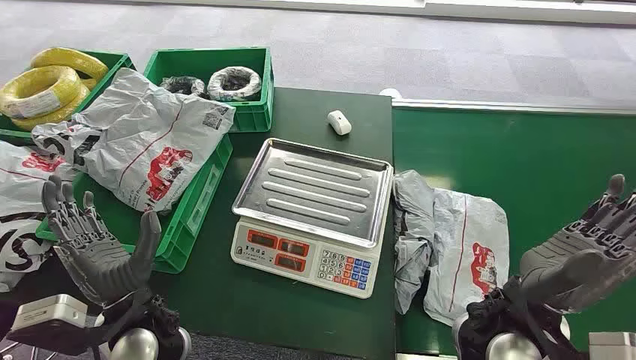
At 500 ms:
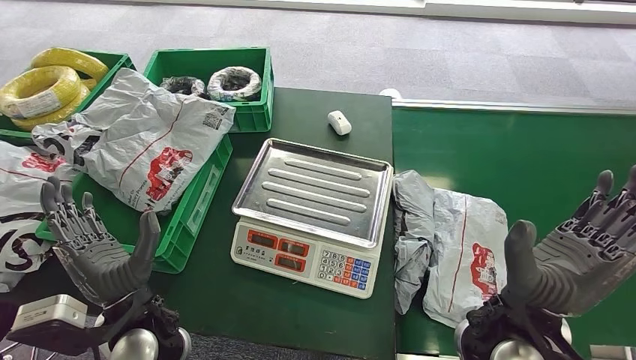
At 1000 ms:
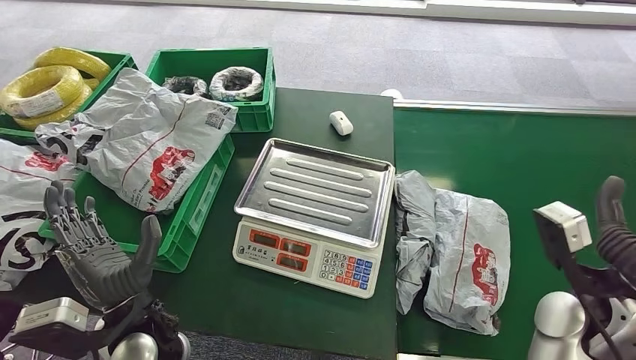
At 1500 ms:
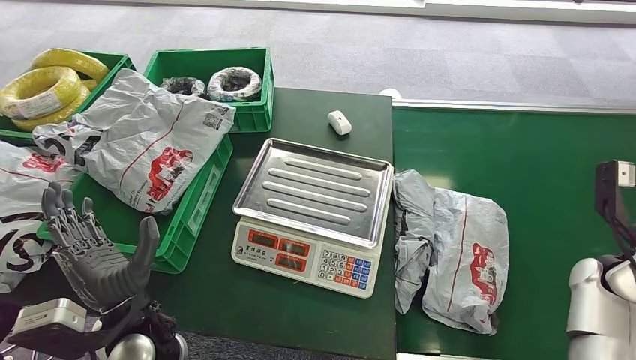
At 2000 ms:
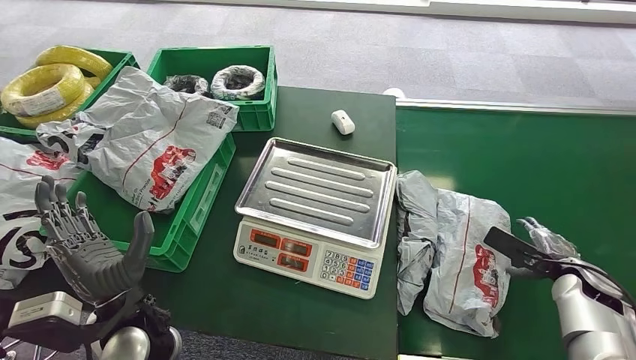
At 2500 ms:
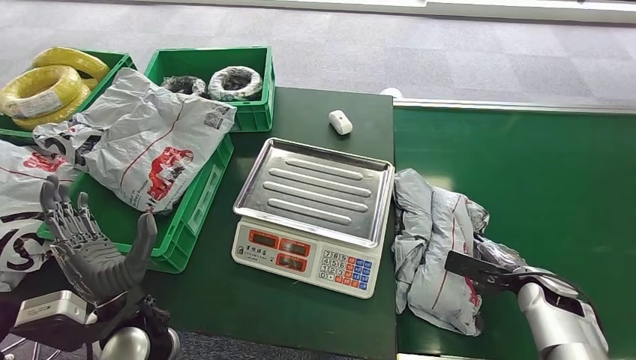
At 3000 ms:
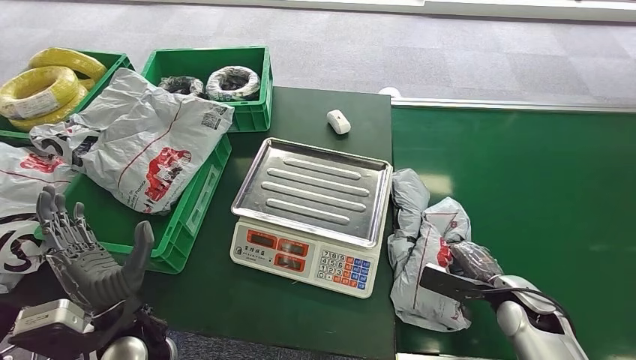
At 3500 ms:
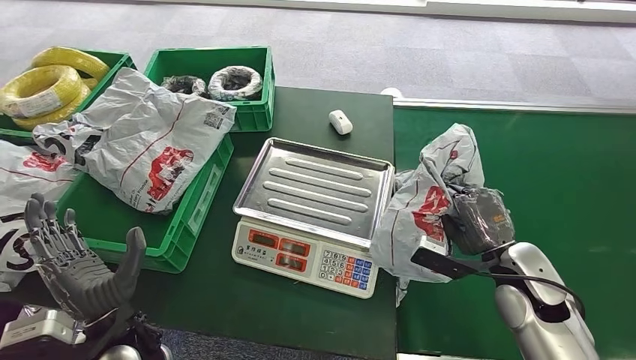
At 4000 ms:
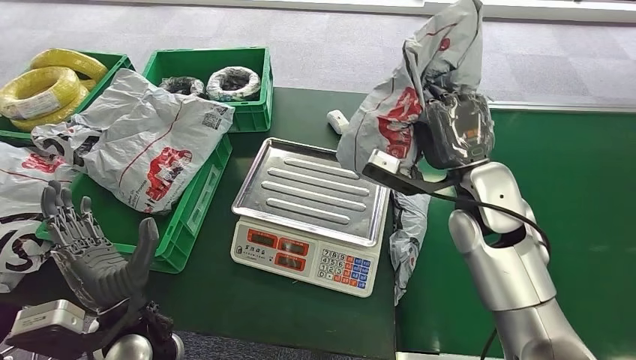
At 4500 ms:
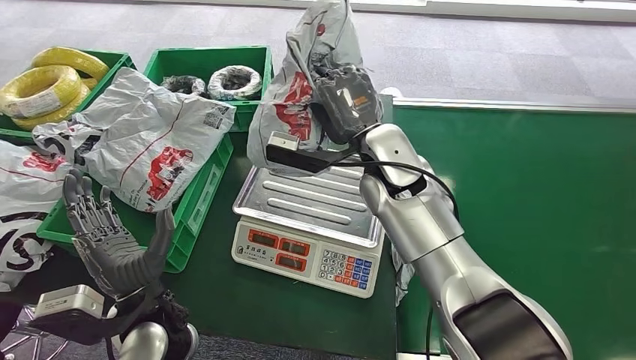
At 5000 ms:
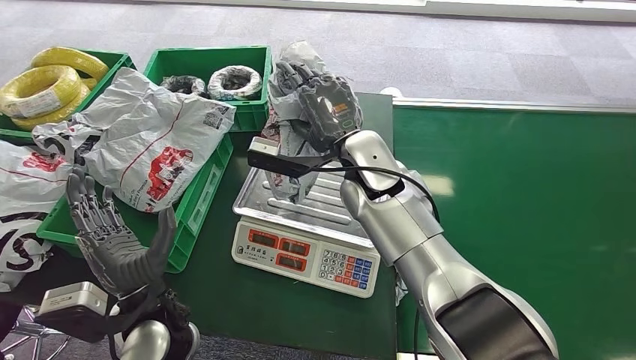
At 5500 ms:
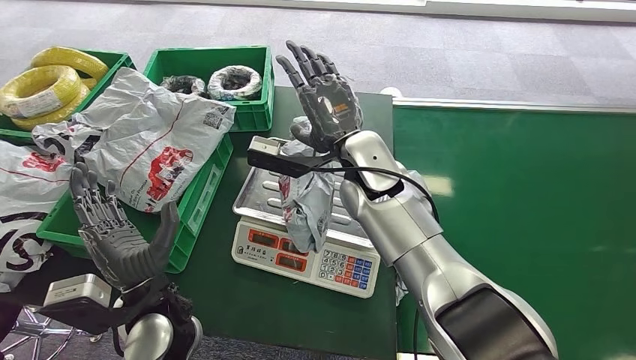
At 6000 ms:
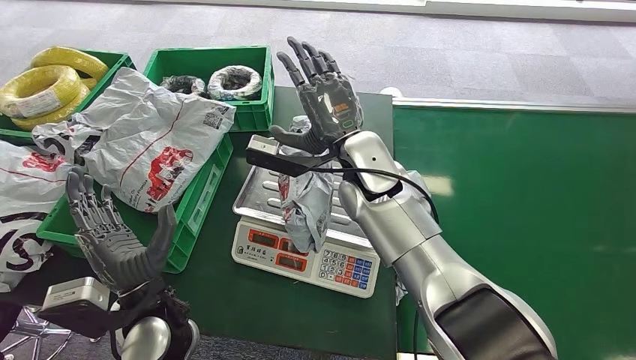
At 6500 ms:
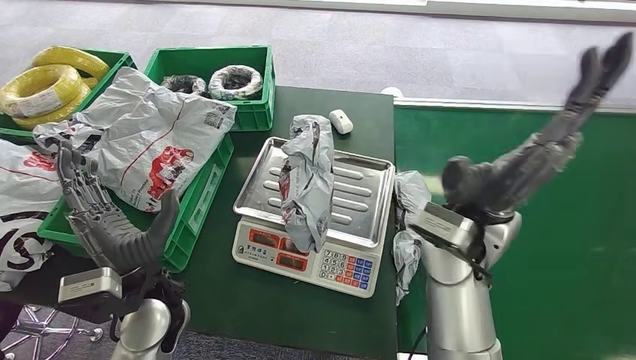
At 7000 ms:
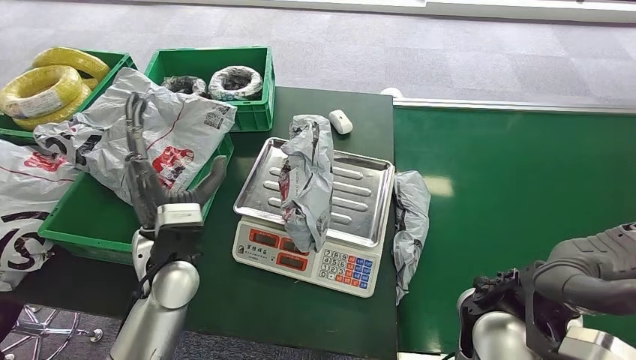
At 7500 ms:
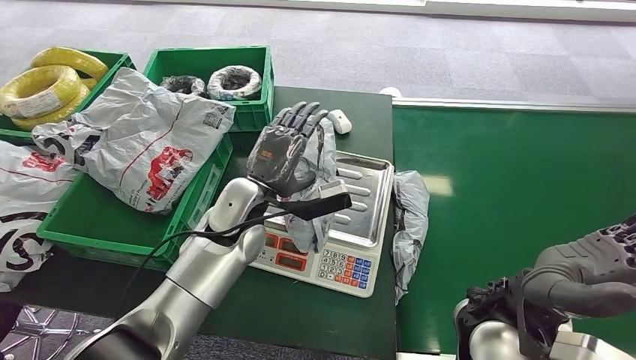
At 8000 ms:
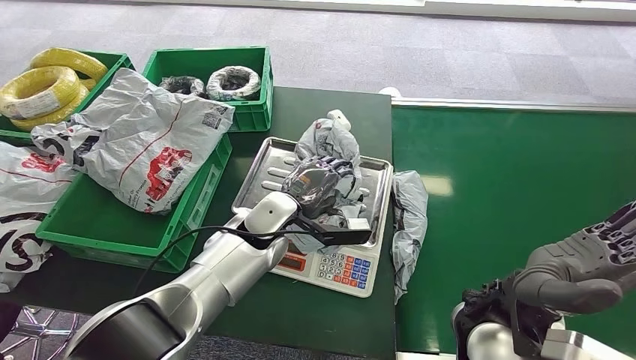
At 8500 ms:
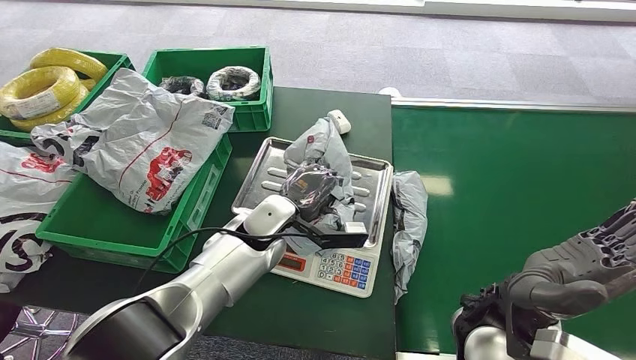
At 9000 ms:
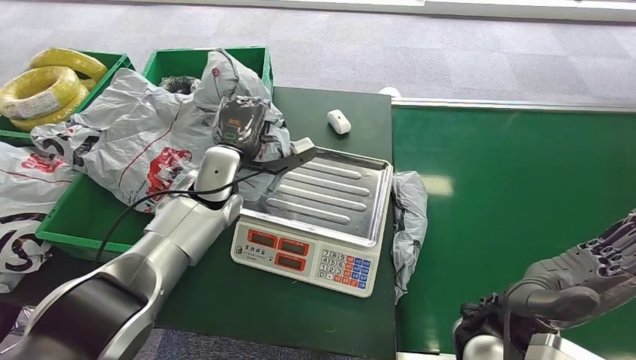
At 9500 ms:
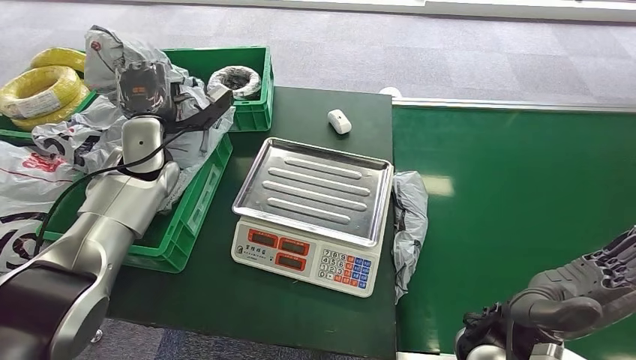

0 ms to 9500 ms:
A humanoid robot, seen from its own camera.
Step, 0 ms to 3500 ms: Pick up the package from the conveyor belt.
Step, 4000 ms to 5500 ms: Place the package onto the inbound machine.
Step, 6000 ms to 9000 ms: Pick up the package from the inbound machine.

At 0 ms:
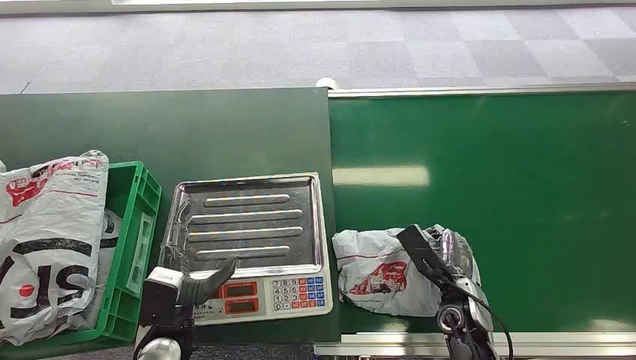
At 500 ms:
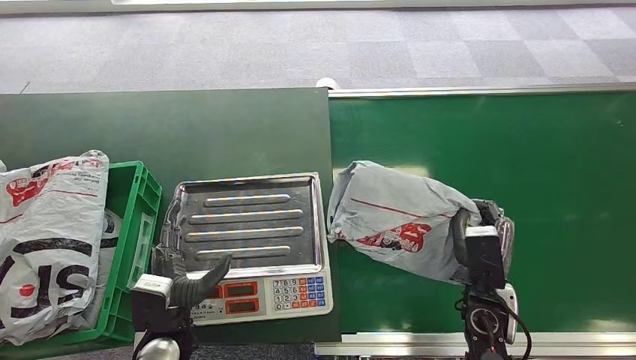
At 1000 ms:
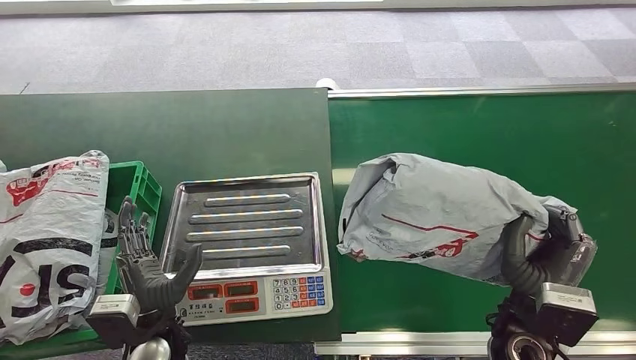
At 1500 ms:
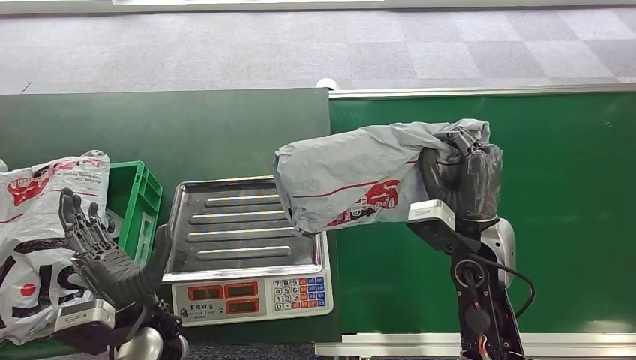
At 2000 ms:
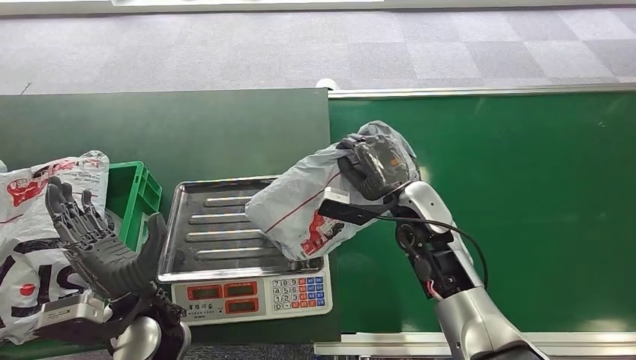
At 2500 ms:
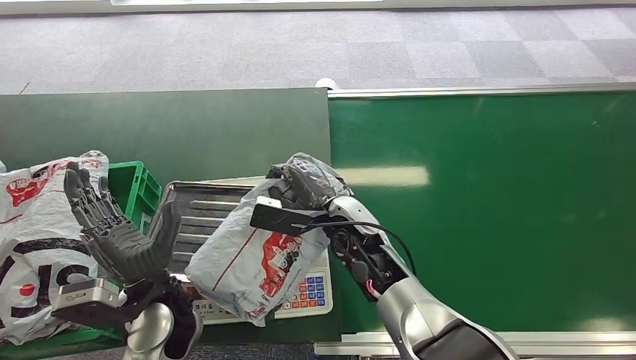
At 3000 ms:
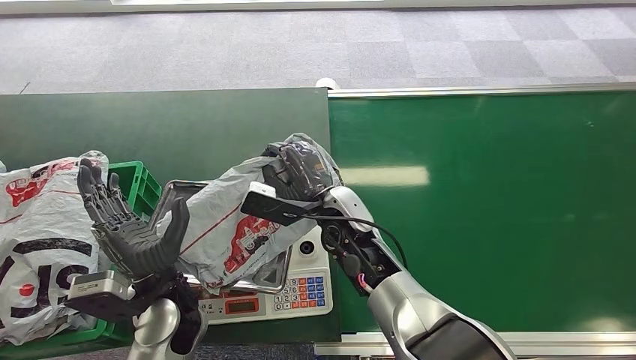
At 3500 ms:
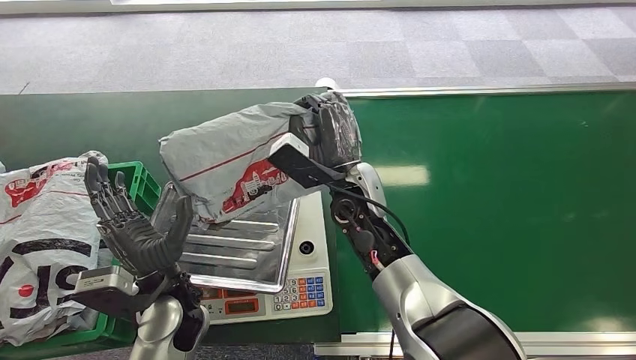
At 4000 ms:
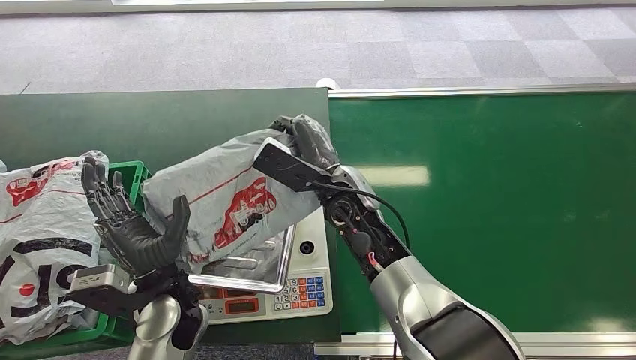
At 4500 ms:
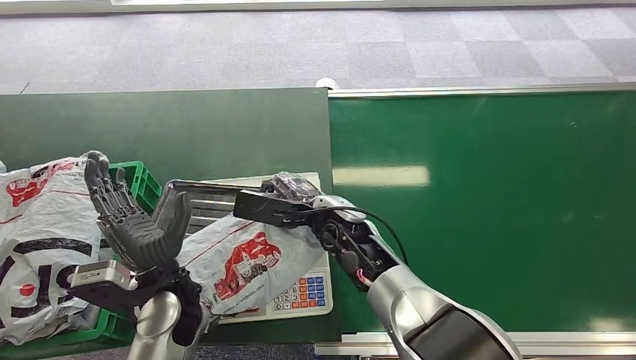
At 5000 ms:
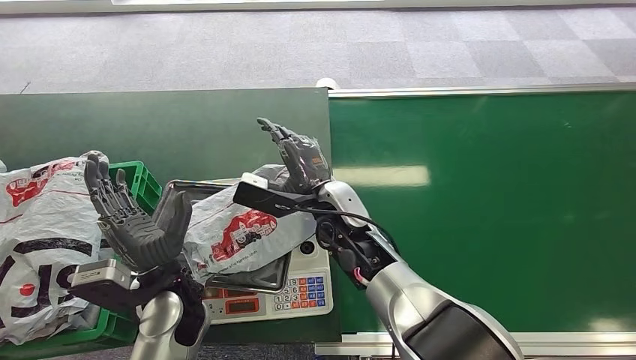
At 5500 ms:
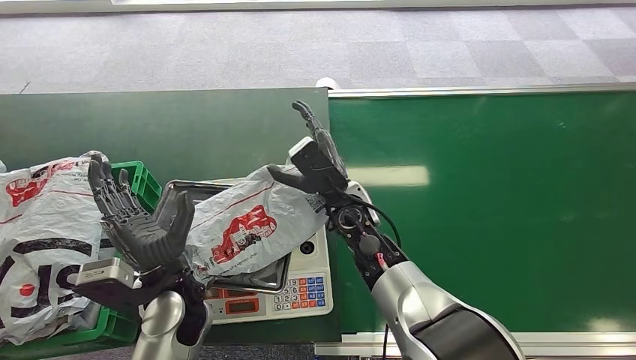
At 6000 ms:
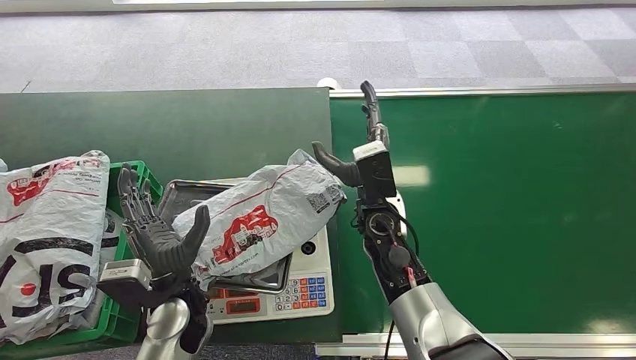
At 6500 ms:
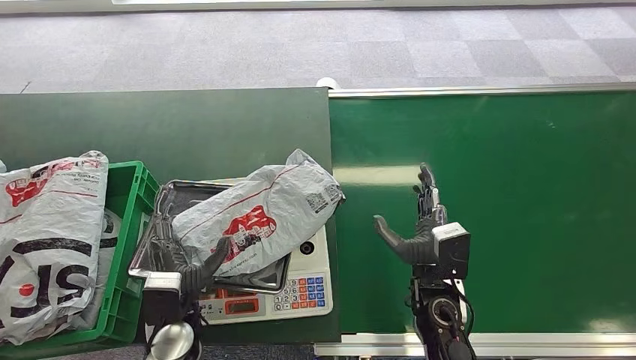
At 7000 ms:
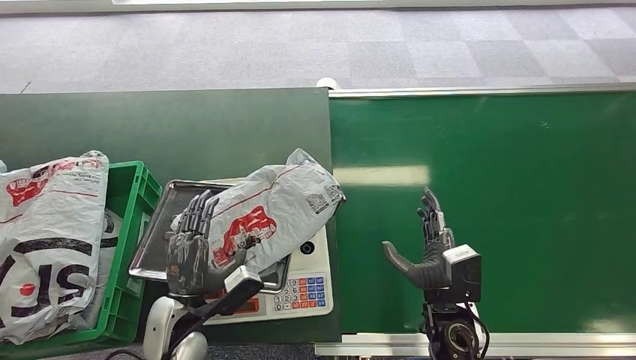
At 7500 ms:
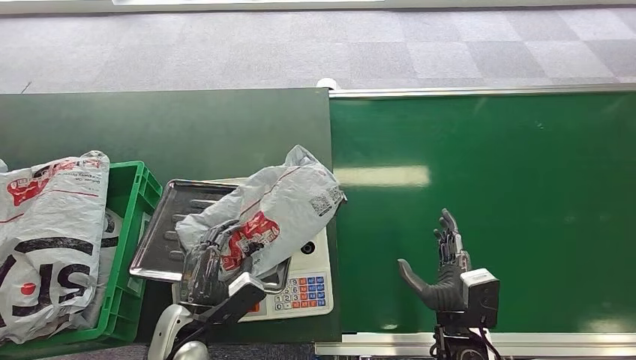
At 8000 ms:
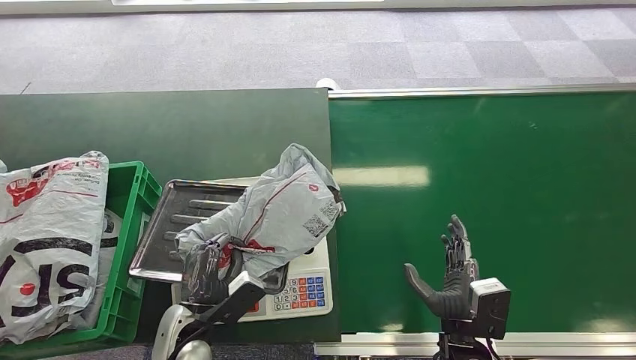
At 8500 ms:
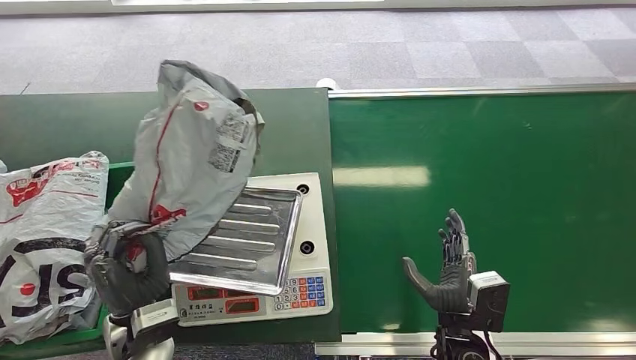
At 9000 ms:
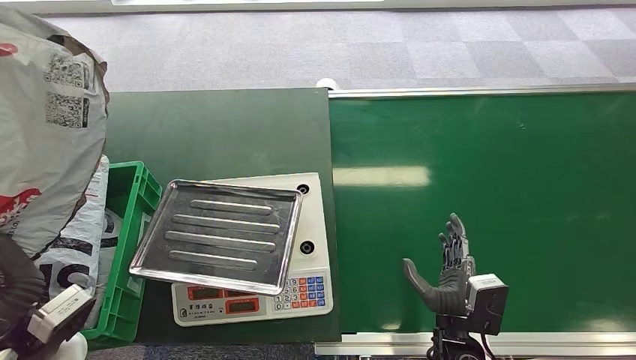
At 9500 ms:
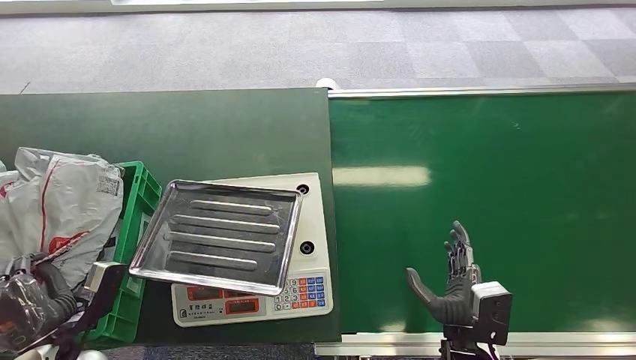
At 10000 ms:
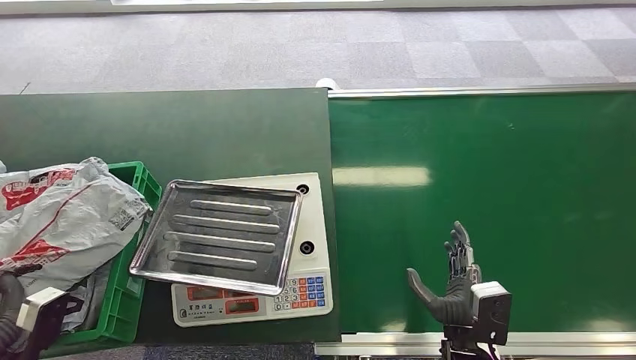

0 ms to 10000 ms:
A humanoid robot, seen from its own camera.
Step, 0 ms to 500 ms: Pick up the package from the conveyor belt.
Step, 2500 ms to 5000 ms: Place the package onto the inbound machine.
Step, 8000 ms to 8500 ms: Pick up the package from the inbound machine.
Step, 9000 ms to 10000 ms: Place the package into the parcel locker.
6000 ms to 8000 ms: The left hand goes roughly 5 cm downward. The right hand moves backward, to the right and downward, approximately 25 cm.
8000 ms to 10000 ms: The left hand is displaced to the left and backward by roughly 20 cm.

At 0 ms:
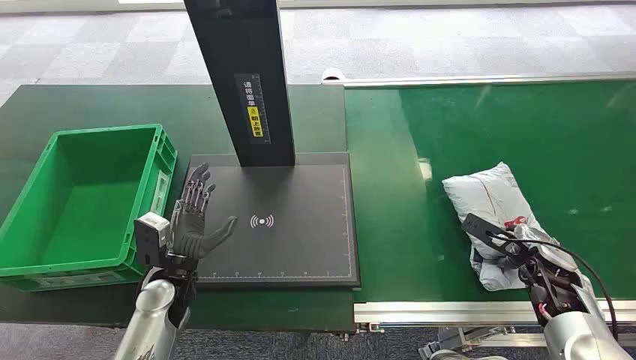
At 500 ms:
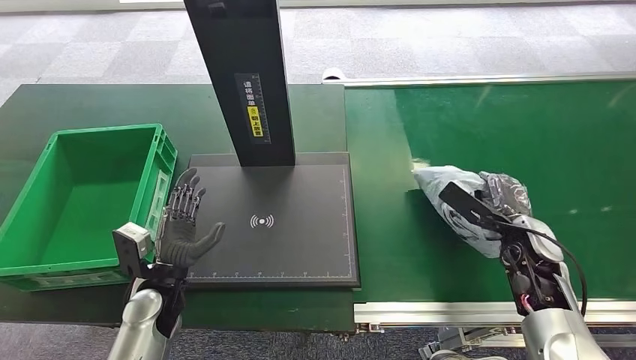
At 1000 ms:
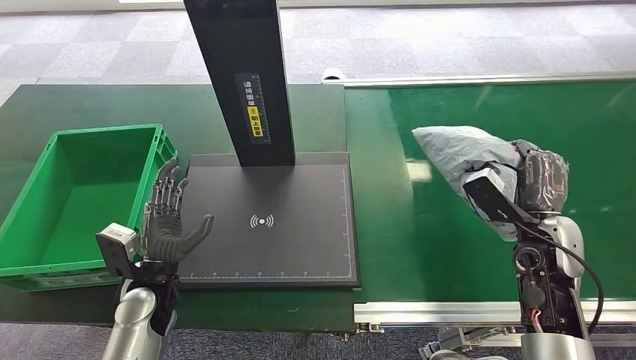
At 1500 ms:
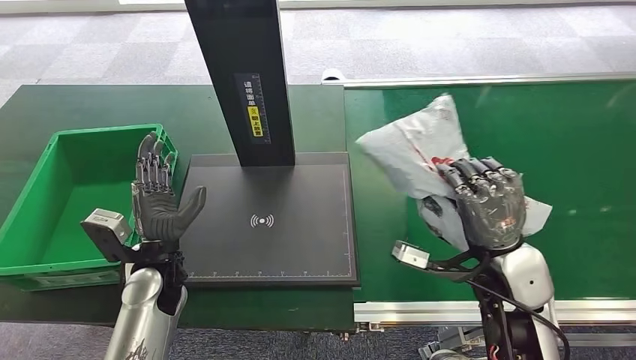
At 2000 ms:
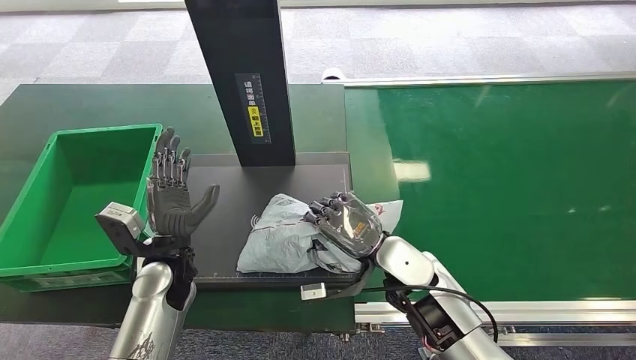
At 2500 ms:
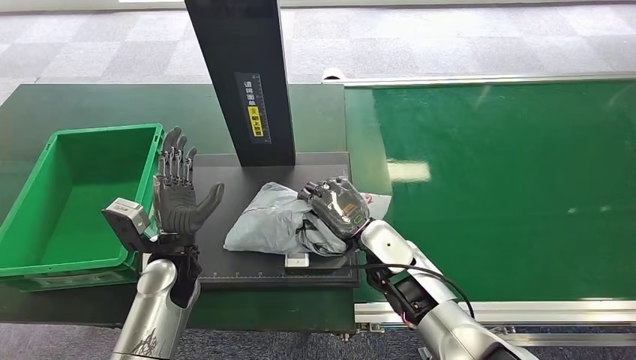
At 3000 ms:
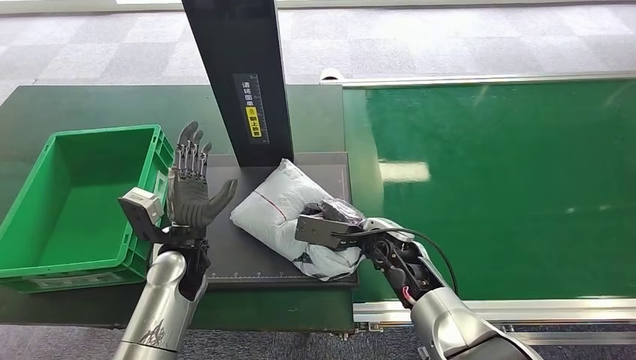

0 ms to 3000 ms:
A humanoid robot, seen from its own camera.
Step, 0 ms to 1500 ms: Pick up the package from the conveyor belt.
